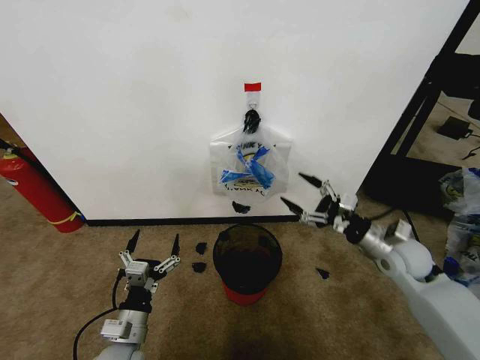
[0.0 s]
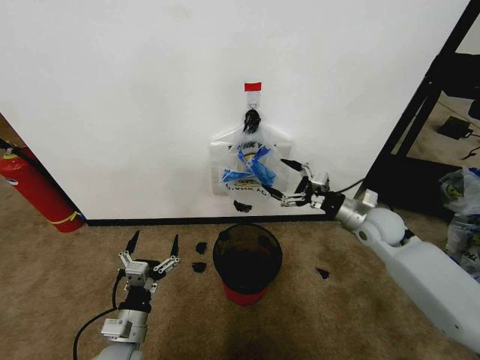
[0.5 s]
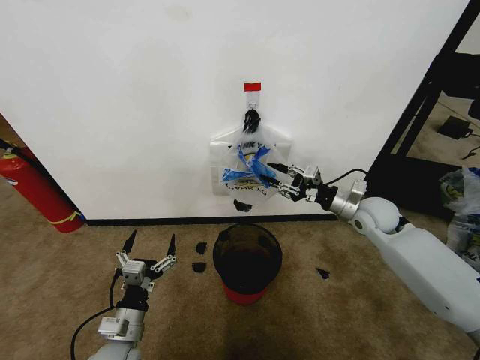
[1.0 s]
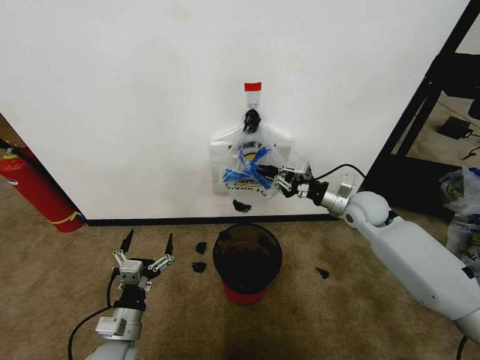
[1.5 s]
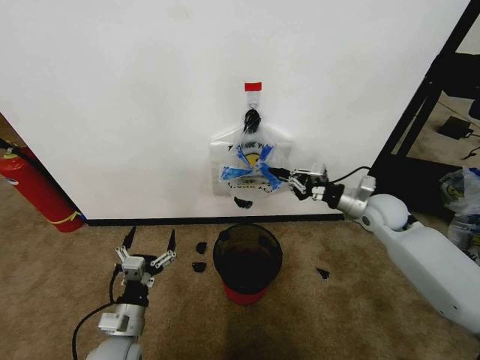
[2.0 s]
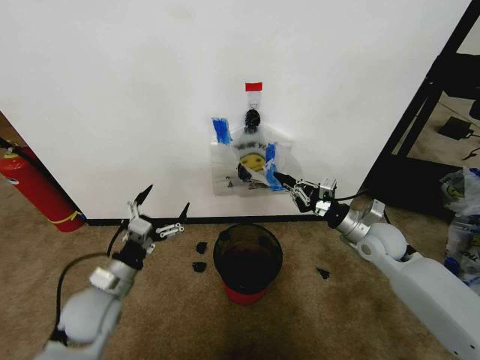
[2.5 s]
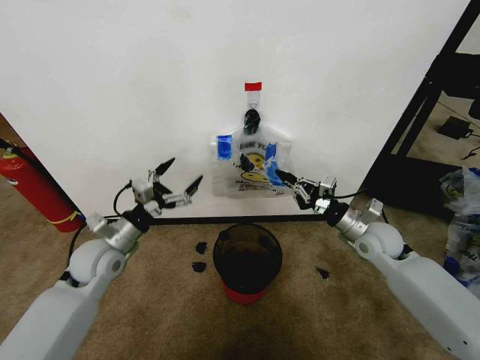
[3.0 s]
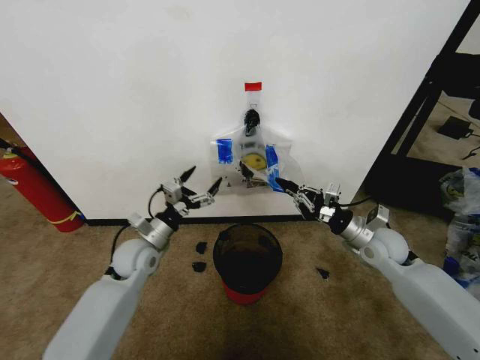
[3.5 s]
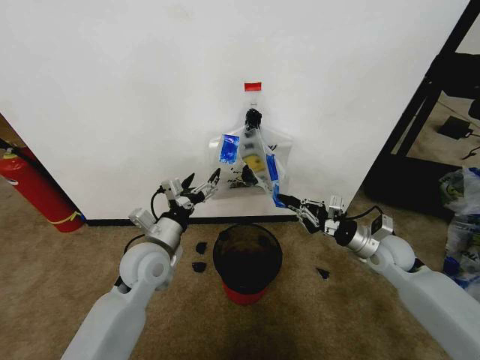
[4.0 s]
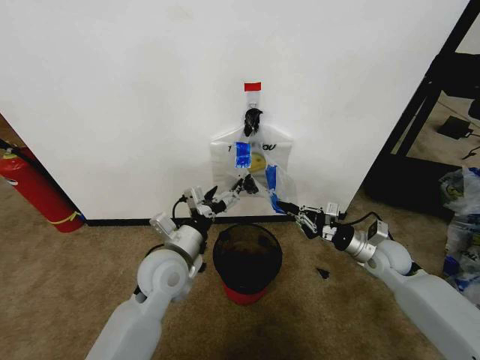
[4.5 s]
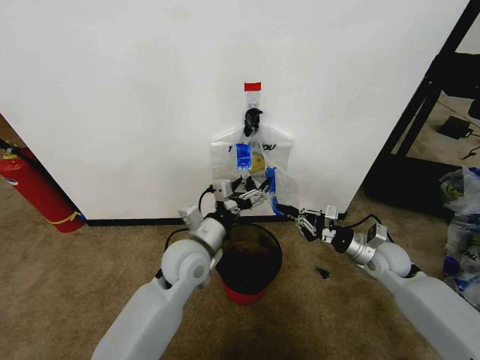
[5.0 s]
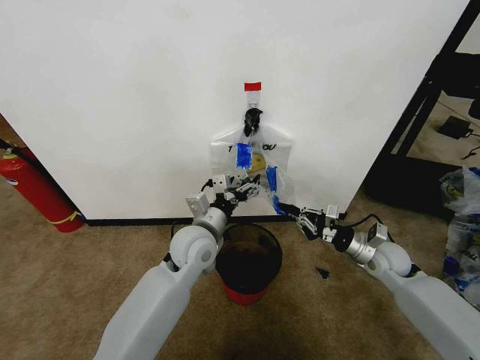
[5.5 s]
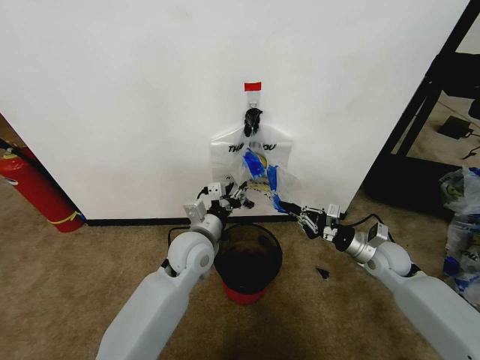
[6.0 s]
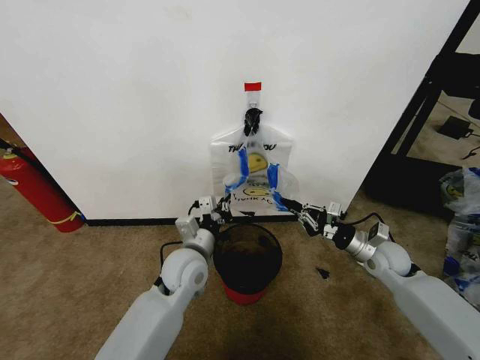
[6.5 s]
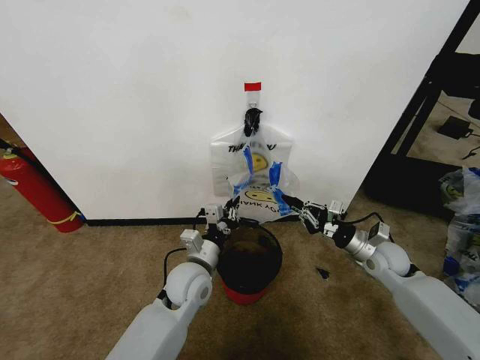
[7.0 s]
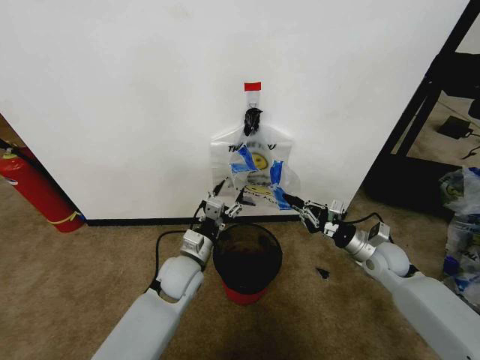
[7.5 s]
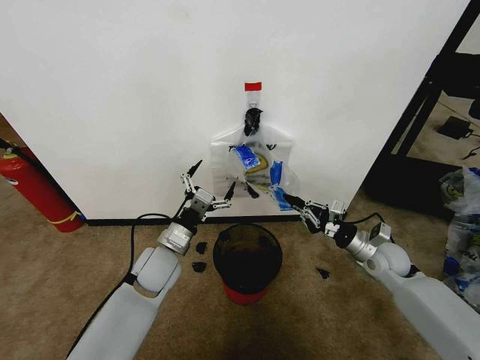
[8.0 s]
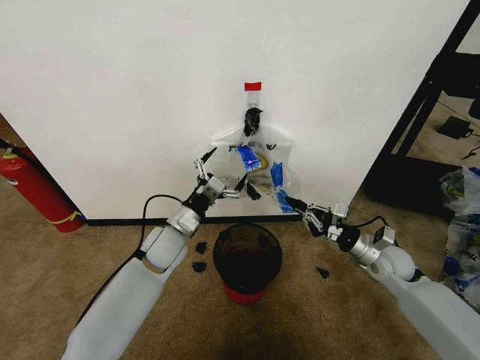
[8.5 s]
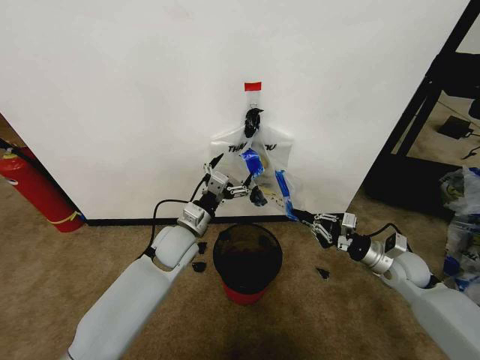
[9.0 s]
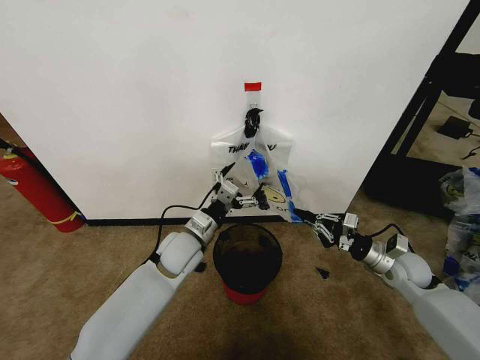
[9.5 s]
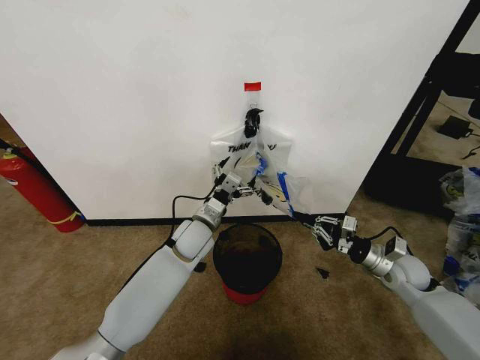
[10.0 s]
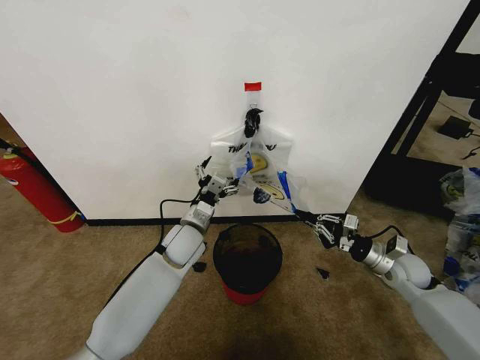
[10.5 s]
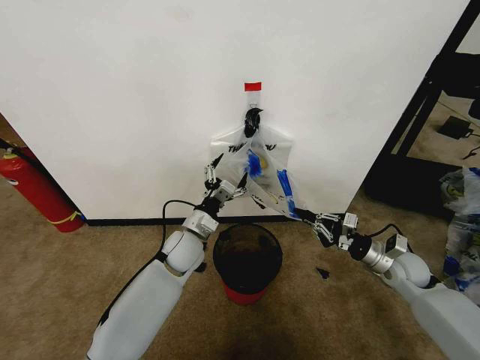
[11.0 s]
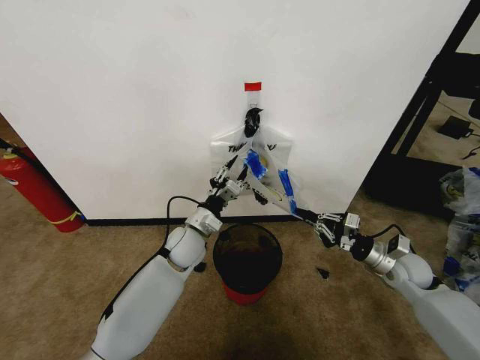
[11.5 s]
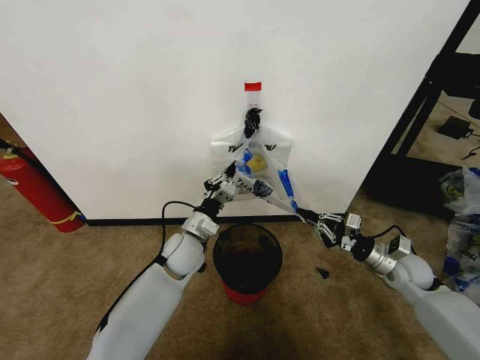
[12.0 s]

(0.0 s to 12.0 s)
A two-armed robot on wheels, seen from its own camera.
Task of the whole recording: Pick up the garbage bag from the wall and place it over the trash bin.
0.0 s - 2.0 s: The right gripper moves forward, about 10 cm, and closes.
2.0 s - 4.0 s: The left gripper heads forward and upward, covering roughly 20 cm. The right gripper goes some 10 cm backward and downward.
4.0 s - 6.0 s: The left gripper moves to the right, roughly 10 cm, and closes up.
6.0 s - 8.0 s: The left gripper moves to the left, roughly 10 cm, and opens up.
8.0 s - 10.0 s: The left gripper shifts approximately 10 cm forward and to the right.
10.0 s - 12.0 s: The left gripper closes its fingers.

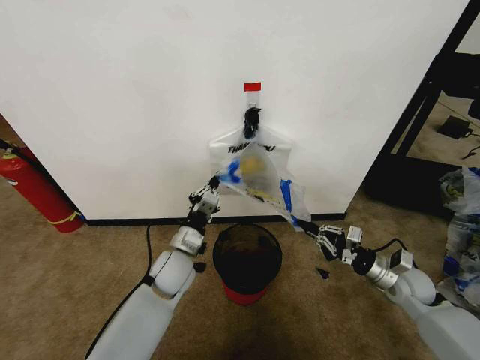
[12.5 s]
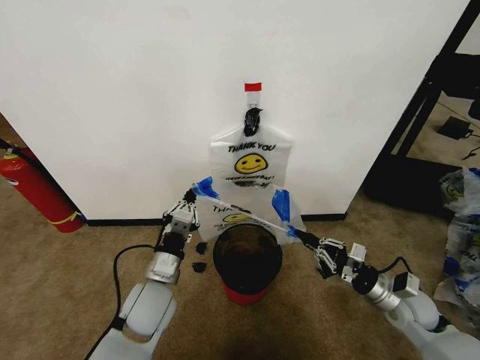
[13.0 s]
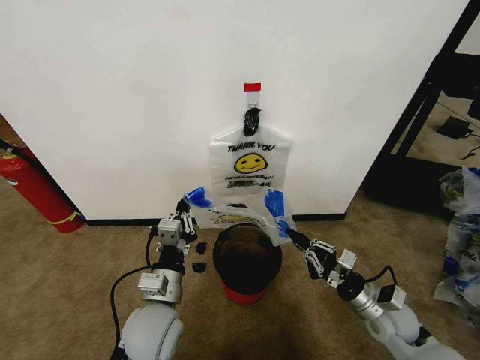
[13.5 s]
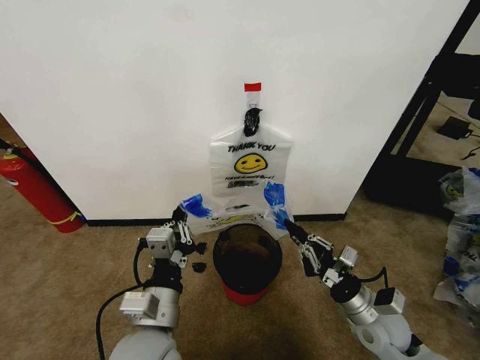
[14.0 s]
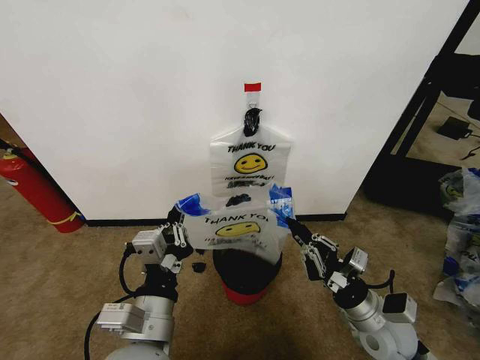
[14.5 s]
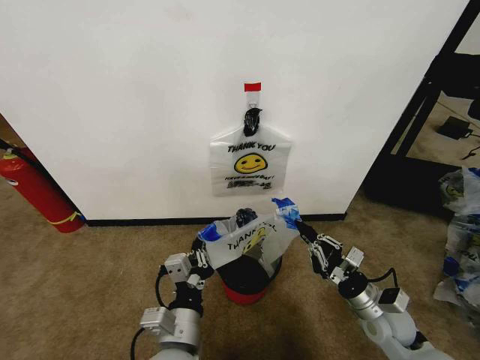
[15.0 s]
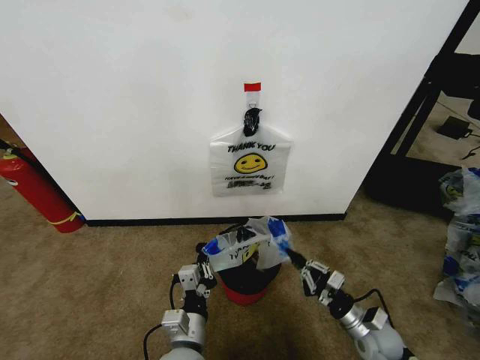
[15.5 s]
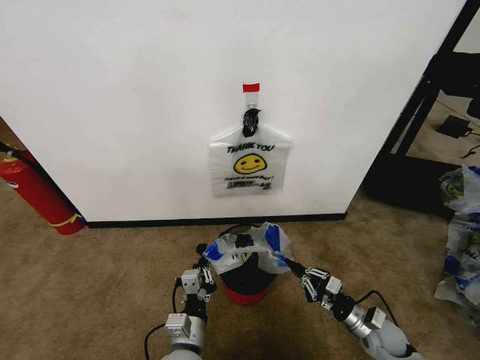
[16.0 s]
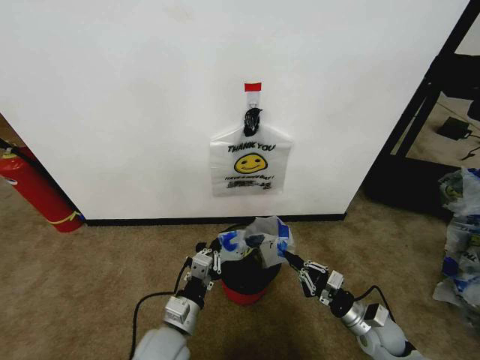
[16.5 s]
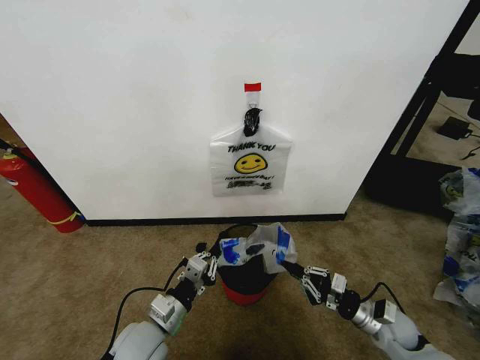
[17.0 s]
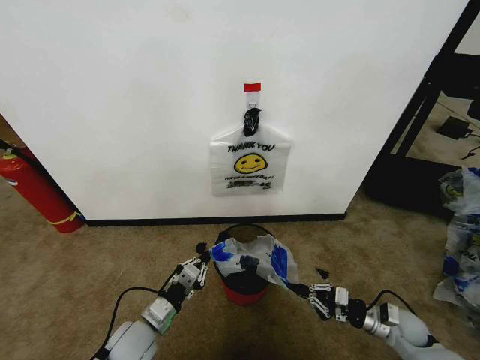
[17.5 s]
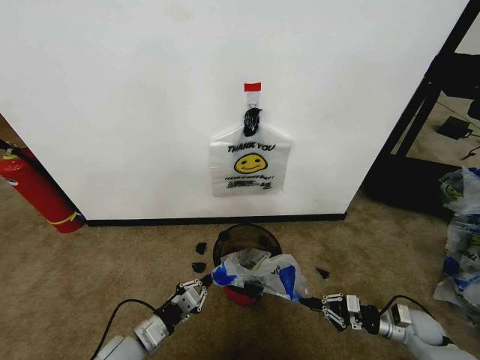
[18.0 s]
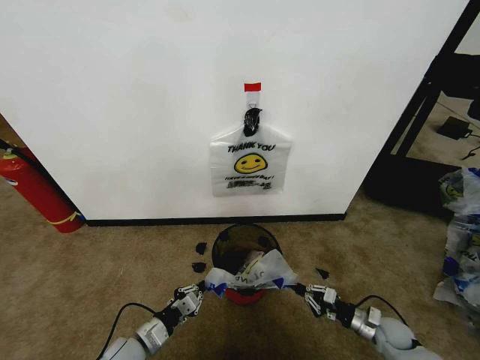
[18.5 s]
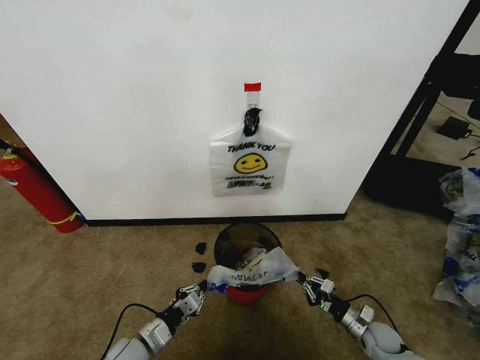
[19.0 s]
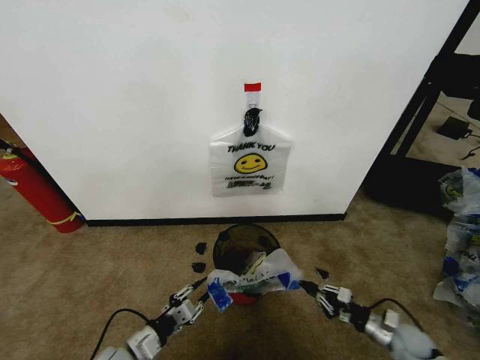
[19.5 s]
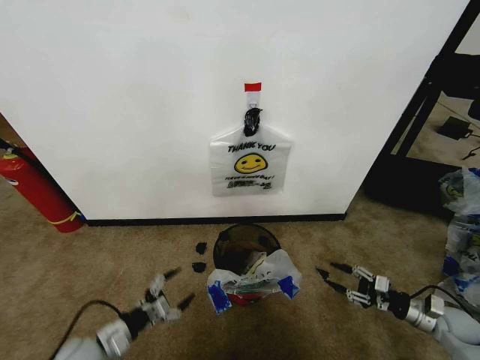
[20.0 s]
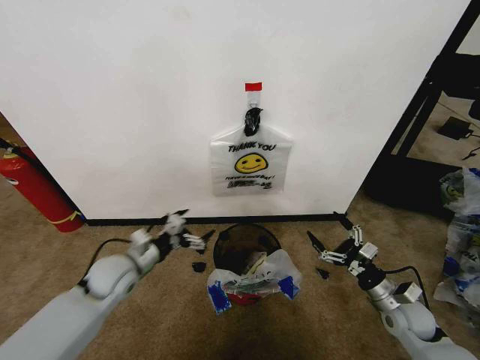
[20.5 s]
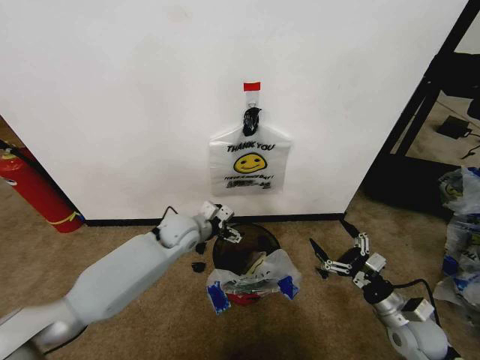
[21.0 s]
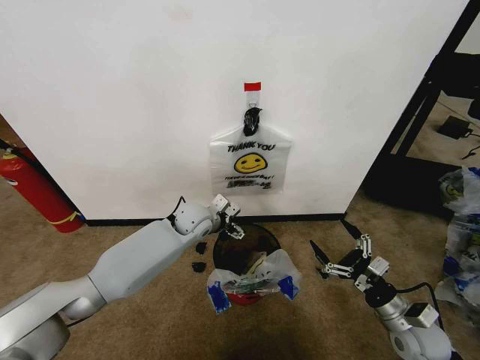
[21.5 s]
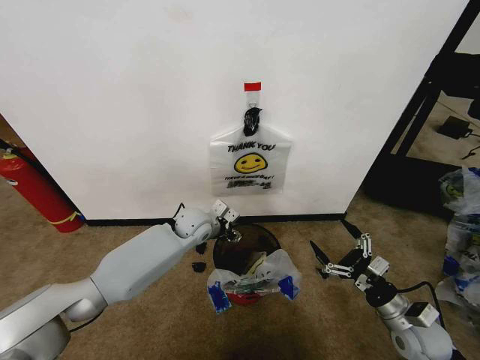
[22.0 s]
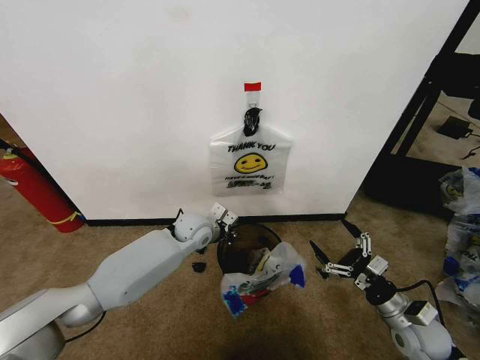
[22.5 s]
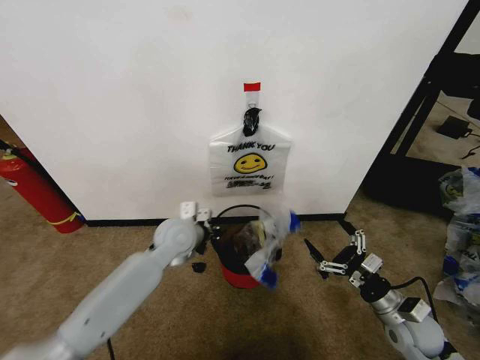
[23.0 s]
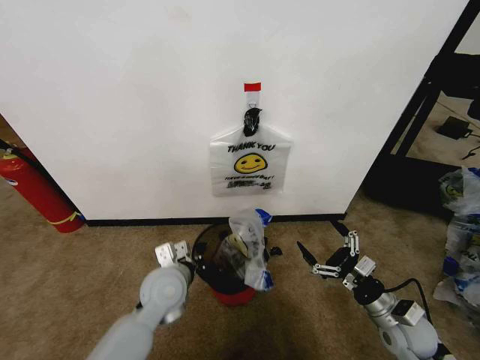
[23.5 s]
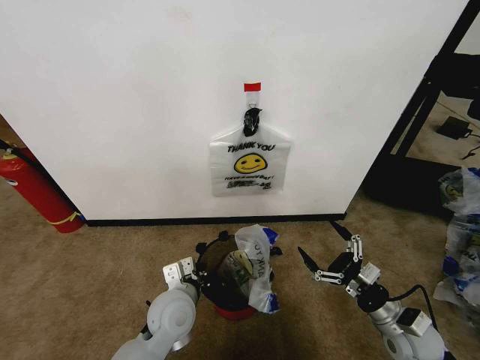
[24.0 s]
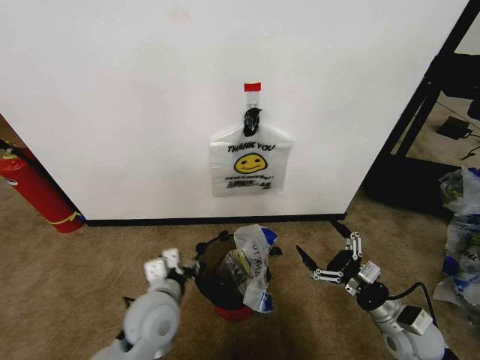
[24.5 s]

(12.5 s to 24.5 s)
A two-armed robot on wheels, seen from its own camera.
Task of the whole recording: Pick up the garbage bag from the wall and place it over the trash bin.
12.5 s - 14.5 s: The left gripper shifts about 25 cm backward and upward; the right gripper goes approximately 15 cm to the left and backward.
14.5 s - 16.5 s: The right gripper is displaced downward and to the right by roughly 15 cm, while the left gripper is displaced downward by some 15 cm.
16.5 s - 18.5 s: The right gripper shifts some 10 cm downward and to the right, while the left gripper goes about 15 cm to the left and downward.
18.5 s - 20.5 s: The left gripper is displaced upward and forward by some 20 cm, and opens; the right gripper goes about 15 cm upward, and opens up.
20.5 s - 22.5 s: The left gripper shifts approximately 20 cm to the right and forward, and closes up.
22.5 s - 24.5 s: The left gripper travels backward by roughly 20 cm, and opens its fingers.

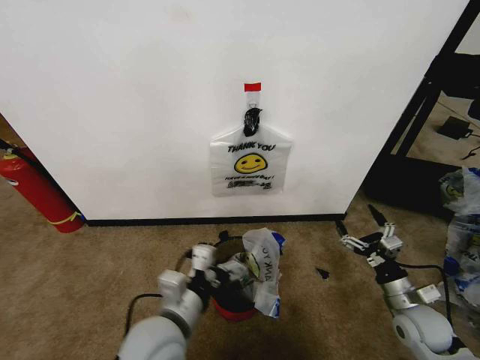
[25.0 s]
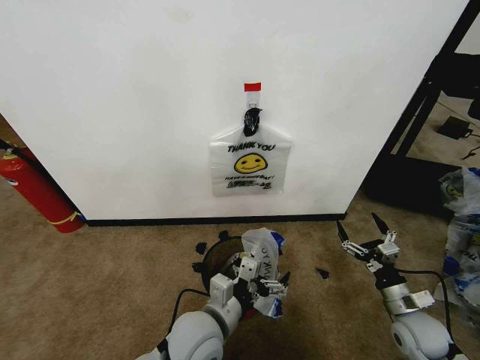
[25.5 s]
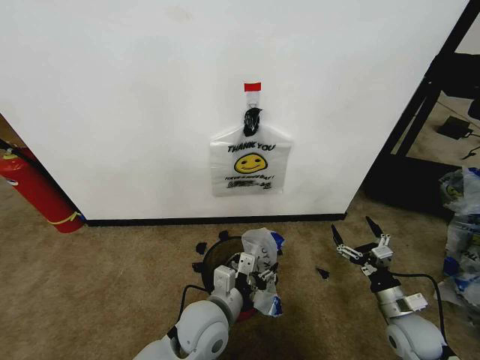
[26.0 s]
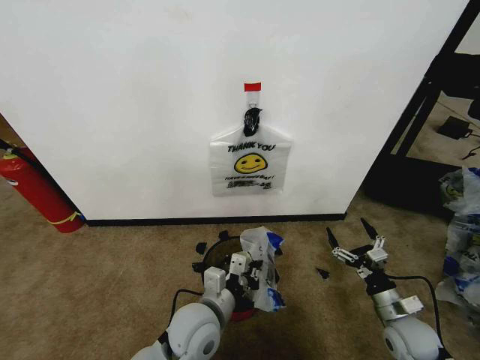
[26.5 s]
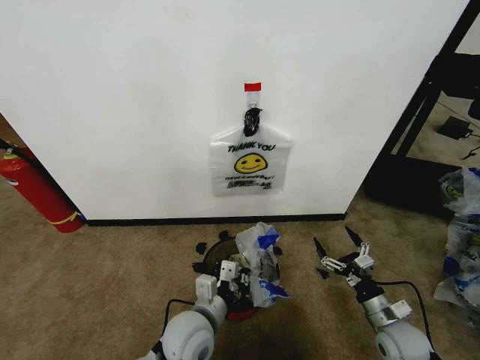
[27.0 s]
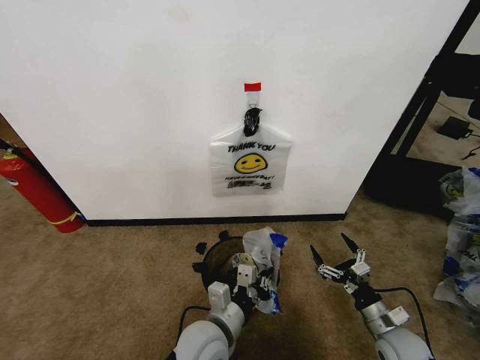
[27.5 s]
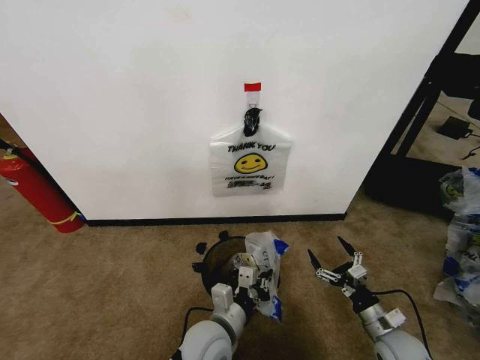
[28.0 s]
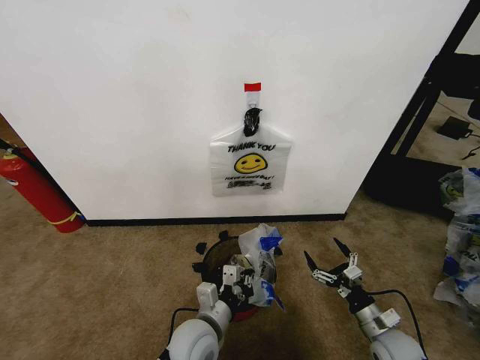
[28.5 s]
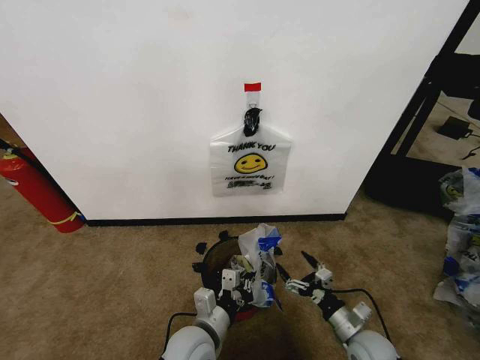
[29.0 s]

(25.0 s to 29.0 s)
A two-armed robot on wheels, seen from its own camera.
Task of the whole recording: Pick up the garbage bag from the wall and place it over the trash bin.
25.0 s - 27.0 s: The right gripper ends up some 5 cm from where it was, while the left gripper moves downward, roughly 5 cm, and closes.
27.0 s - 29.0 s: The right gripper moves to the left, some 5 cm.
